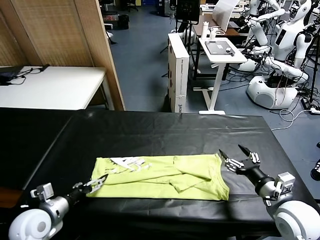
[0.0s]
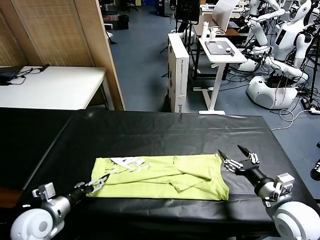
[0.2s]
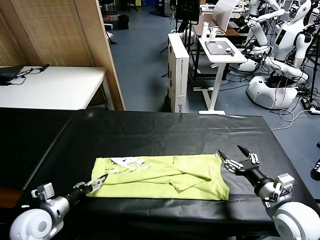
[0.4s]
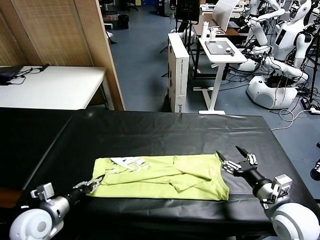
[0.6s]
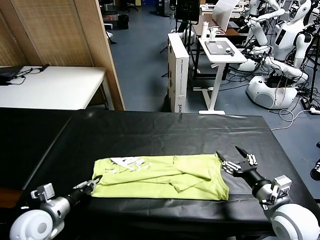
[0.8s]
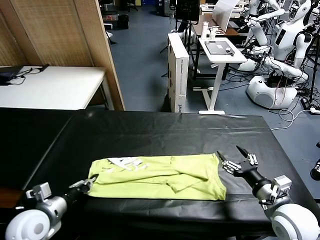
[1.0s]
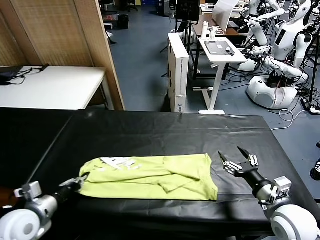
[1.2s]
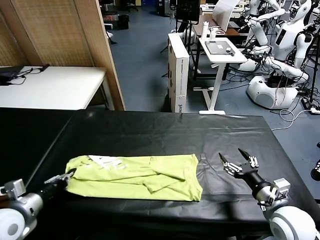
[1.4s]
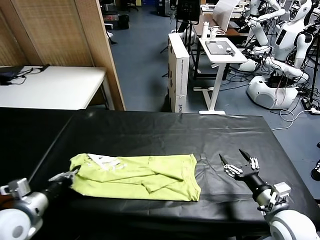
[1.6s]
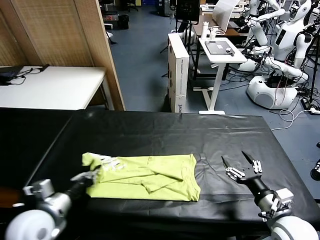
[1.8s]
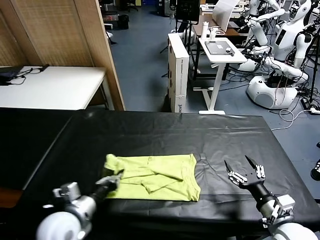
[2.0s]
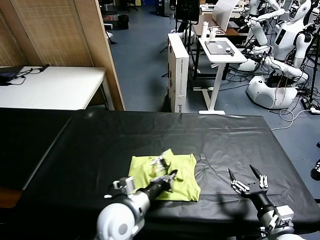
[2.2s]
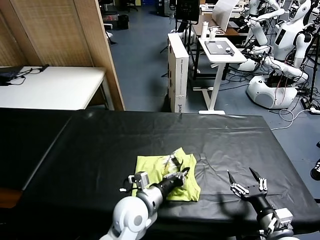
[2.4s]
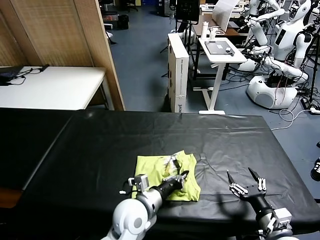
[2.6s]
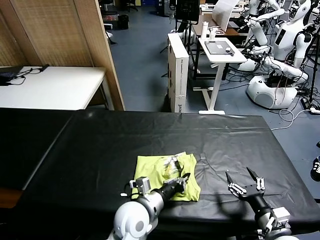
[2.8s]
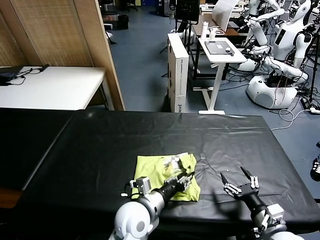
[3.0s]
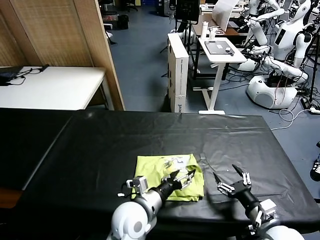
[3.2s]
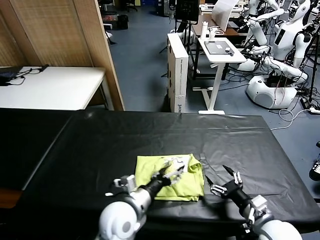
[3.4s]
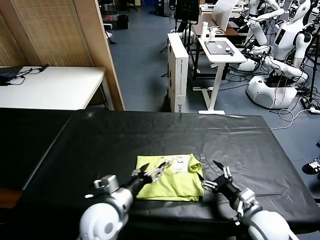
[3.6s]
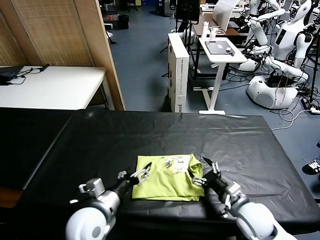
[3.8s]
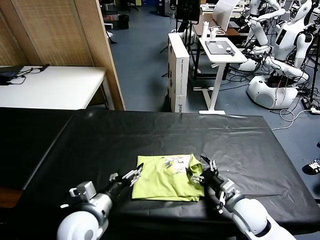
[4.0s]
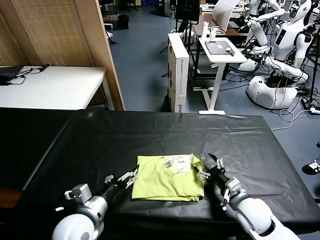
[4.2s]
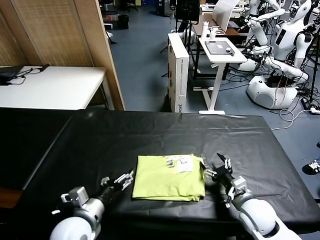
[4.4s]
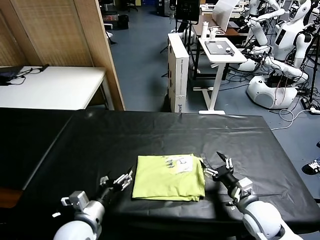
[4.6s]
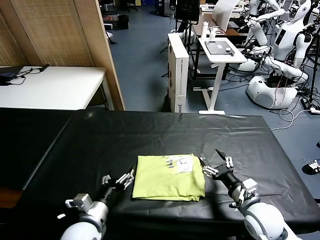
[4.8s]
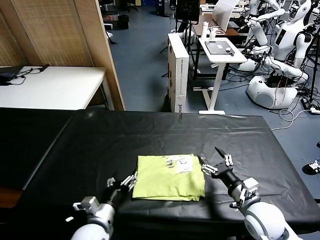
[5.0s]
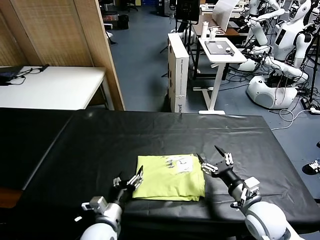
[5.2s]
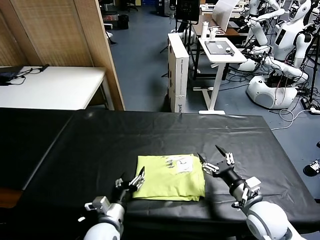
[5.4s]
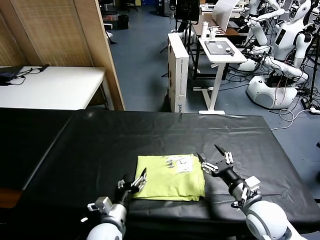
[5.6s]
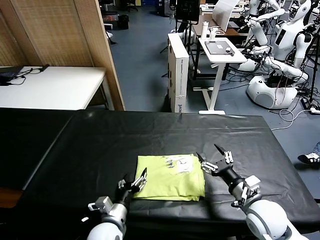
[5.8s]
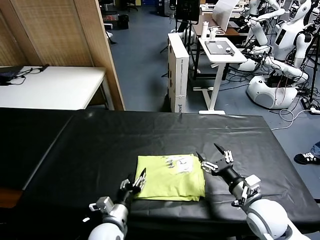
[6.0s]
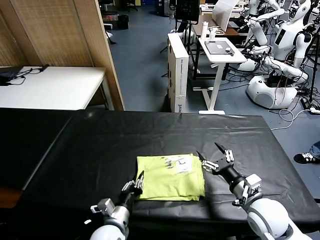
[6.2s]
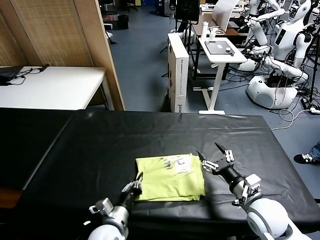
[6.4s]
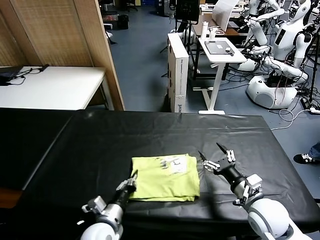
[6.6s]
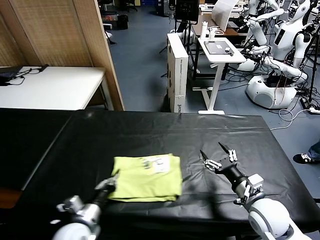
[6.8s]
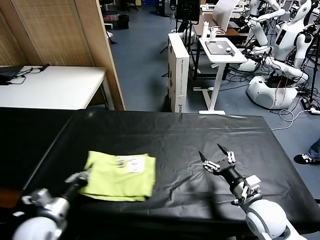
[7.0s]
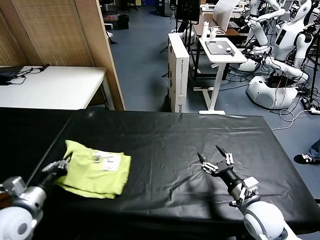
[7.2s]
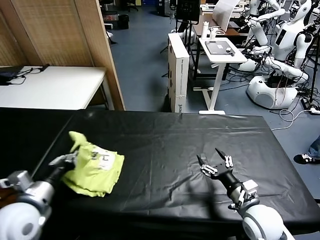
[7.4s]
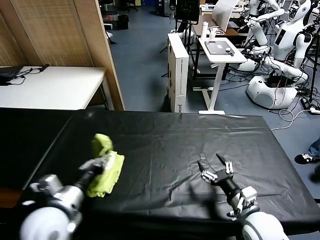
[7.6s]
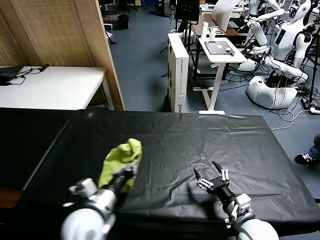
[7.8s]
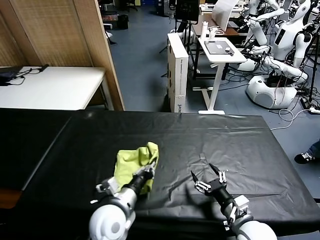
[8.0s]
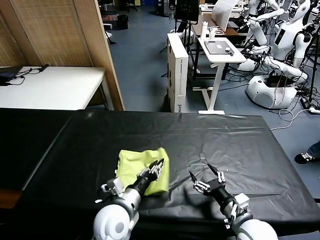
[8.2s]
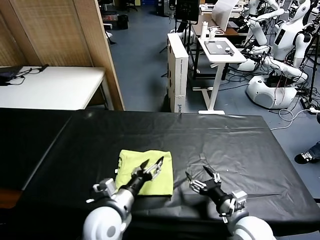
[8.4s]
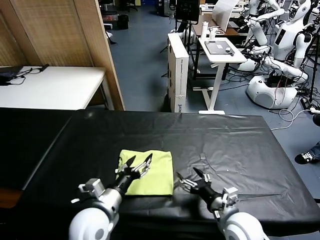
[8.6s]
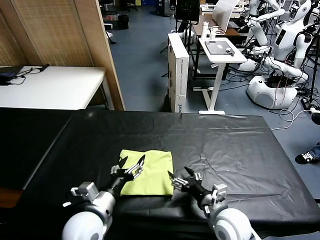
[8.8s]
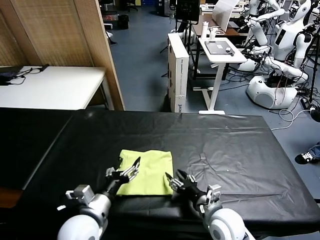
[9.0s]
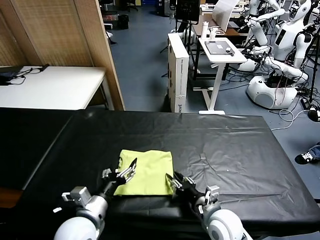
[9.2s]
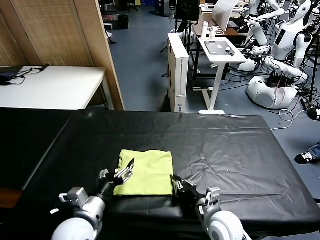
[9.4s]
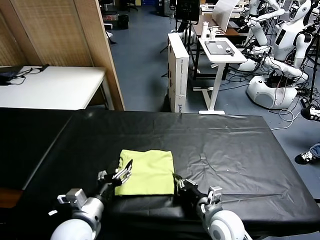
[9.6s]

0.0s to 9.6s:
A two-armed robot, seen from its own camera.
Task of the whole recording: fold and organize the clothes.
Step, 1.0s to 3.2s: use the left gripper to drag the left edge of the fabric to the left and folds it over the right edge.
Step, 3.4s to 8.2s: Flip the folded clothes over with left gripper.
0.0s to 1.6s: The left gripper heads to the right, covering roughly 15 cm, and closes its fingers. The right gripper goes approximately 5 cm backward.
1.6s to 3.2s: The left gripper is displaced to the right by roughly 10 cm, and opens up.
3.2s to 4.8s: The left gripper travels to the left by some 15 cm. The right gripper shifts roughly 5 cm forward.
4.8s to 6.4s: The left gripper changes place by approximately 5 cm, and closes its fingers.
6.4s to 8.0s: The right gripper shifts by approximately 5 cm; the left gripper goes approximately 5 cm upward, and goes to the left and returns, roughly 20 cm each way.
8.0s to 9.6s: Both grippers travel together to the left, some 5 cm. The left gripper opens its fingers, while the right gripper closes up.

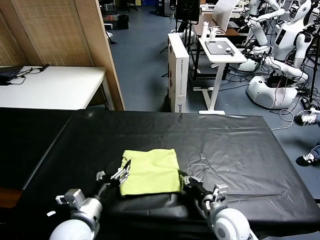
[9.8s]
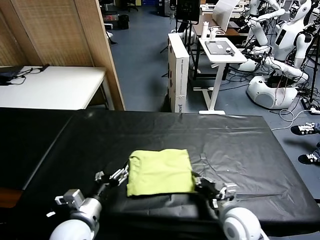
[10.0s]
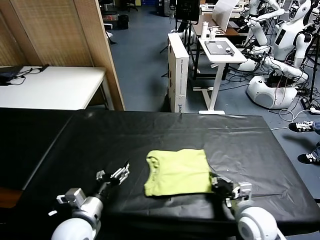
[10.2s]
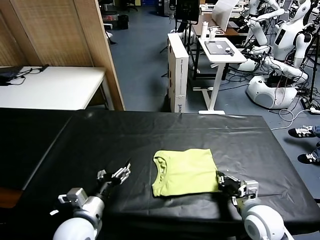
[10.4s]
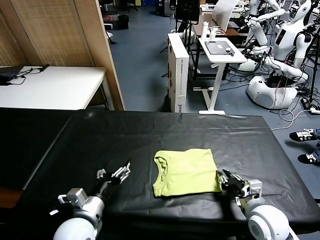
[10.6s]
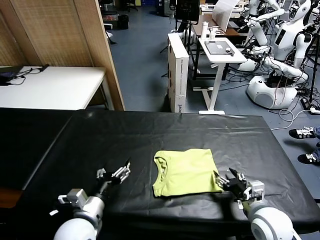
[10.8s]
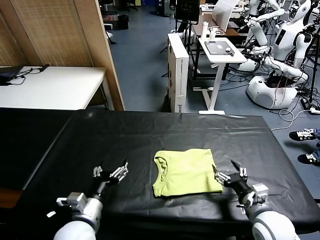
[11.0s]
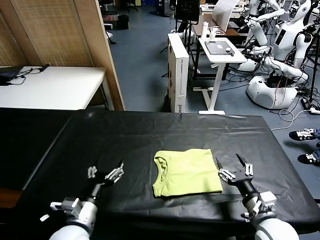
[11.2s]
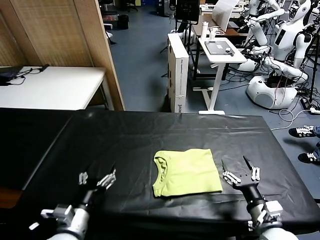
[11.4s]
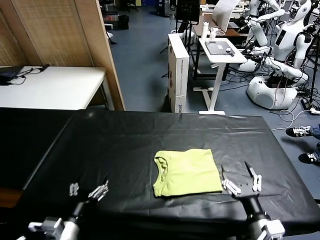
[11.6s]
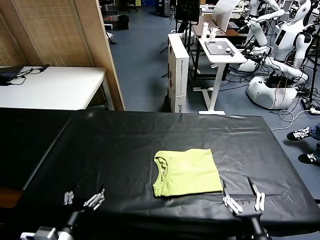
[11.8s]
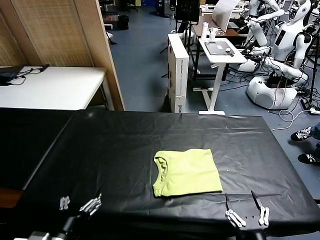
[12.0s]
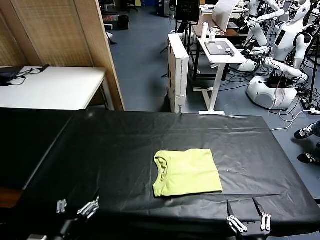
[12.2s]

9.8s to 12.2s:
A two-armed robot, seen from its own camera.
Task of the whole recording: fold and organize the clothes.
9.8s to 11.0s: The right gripper travels to the right by roughly 10 cm, and opens up.
11.0s to 12.2s: The right gripper is displaced backward by about 15 cm. The left gripper moves backward, approximately 10 cm.

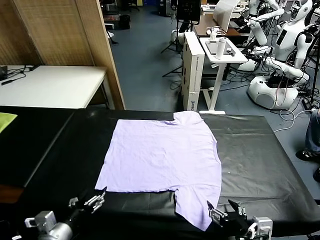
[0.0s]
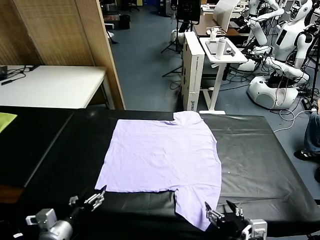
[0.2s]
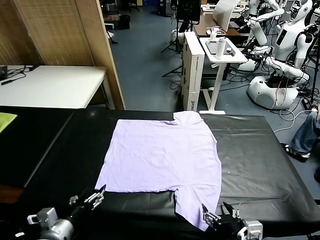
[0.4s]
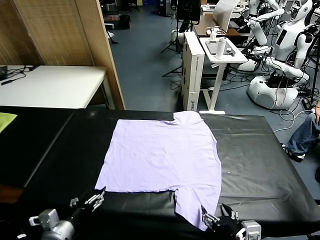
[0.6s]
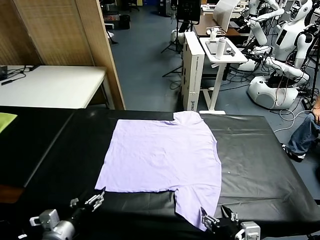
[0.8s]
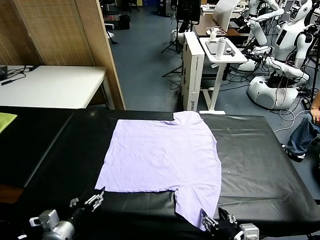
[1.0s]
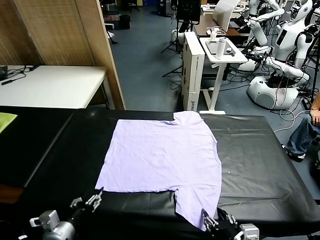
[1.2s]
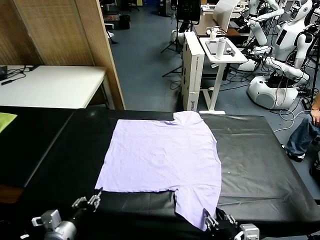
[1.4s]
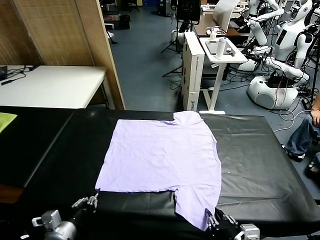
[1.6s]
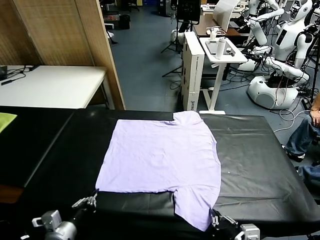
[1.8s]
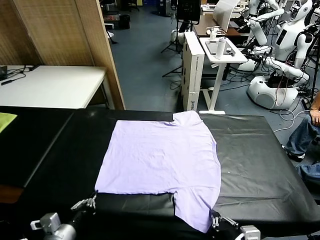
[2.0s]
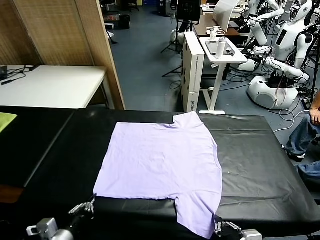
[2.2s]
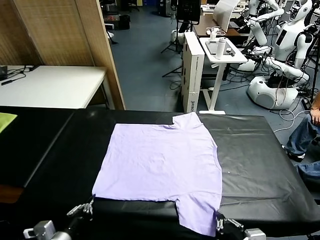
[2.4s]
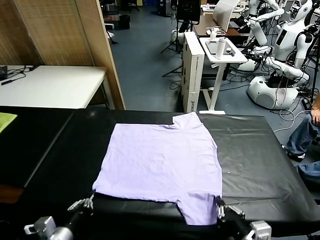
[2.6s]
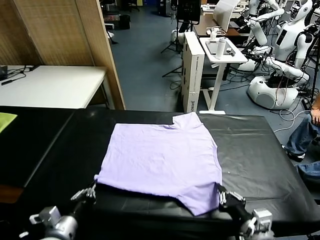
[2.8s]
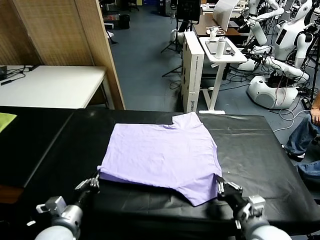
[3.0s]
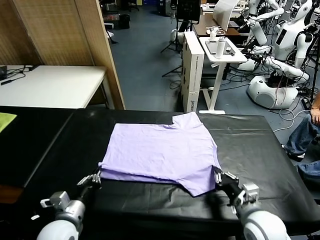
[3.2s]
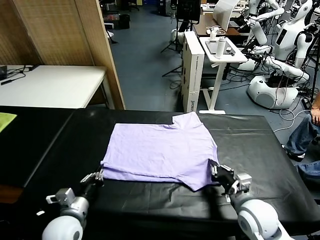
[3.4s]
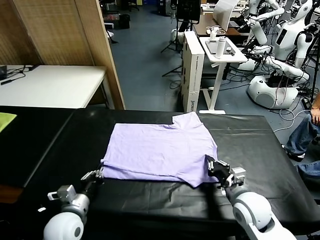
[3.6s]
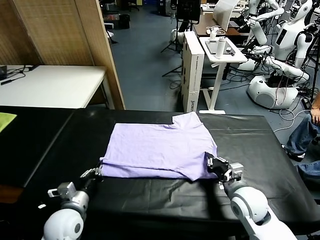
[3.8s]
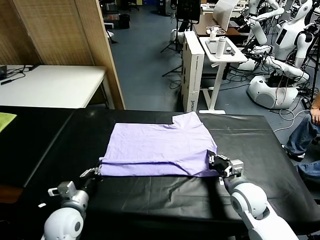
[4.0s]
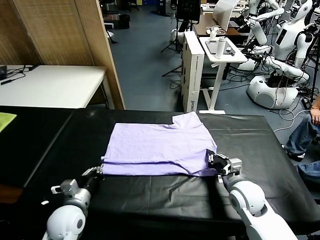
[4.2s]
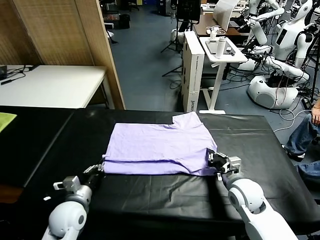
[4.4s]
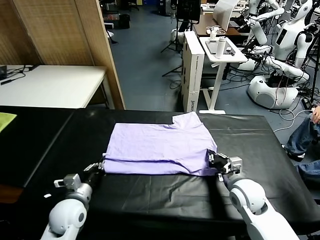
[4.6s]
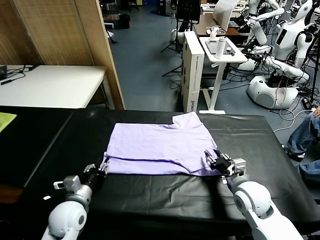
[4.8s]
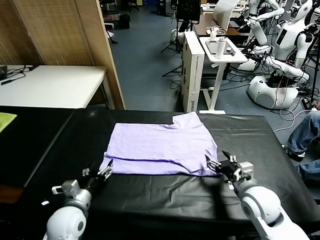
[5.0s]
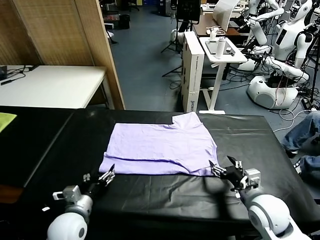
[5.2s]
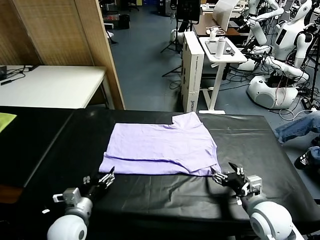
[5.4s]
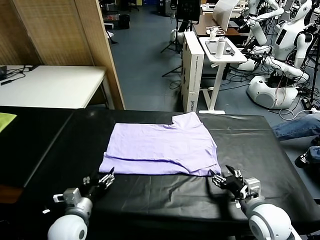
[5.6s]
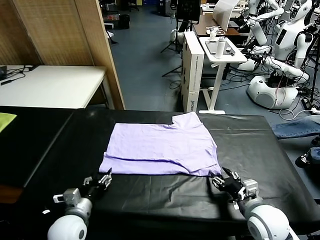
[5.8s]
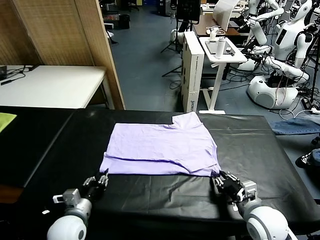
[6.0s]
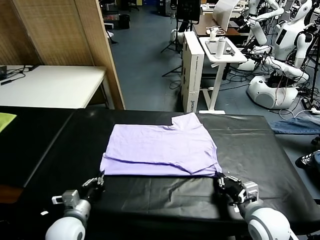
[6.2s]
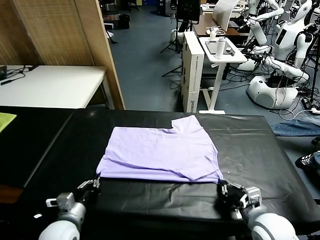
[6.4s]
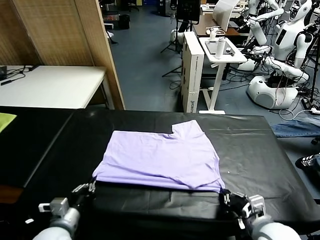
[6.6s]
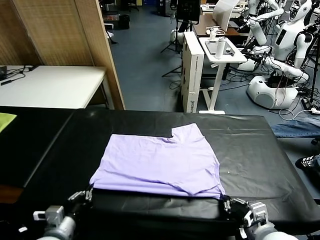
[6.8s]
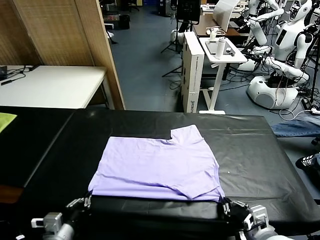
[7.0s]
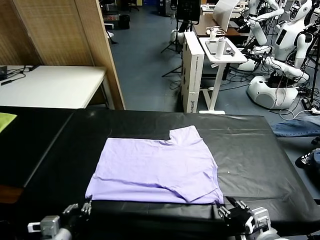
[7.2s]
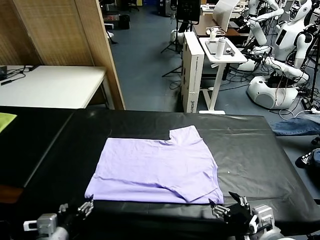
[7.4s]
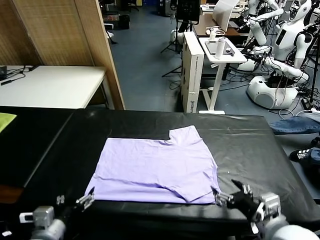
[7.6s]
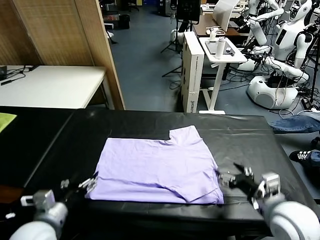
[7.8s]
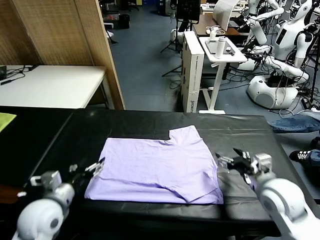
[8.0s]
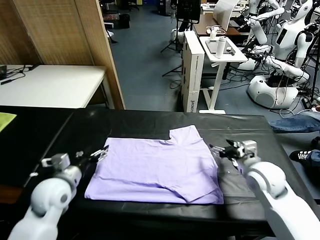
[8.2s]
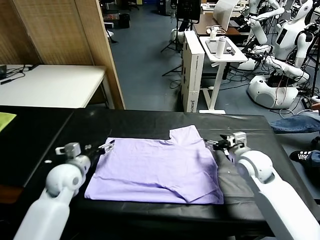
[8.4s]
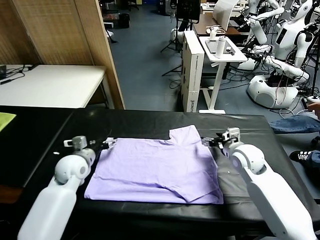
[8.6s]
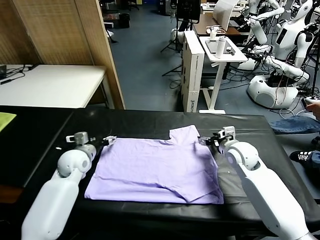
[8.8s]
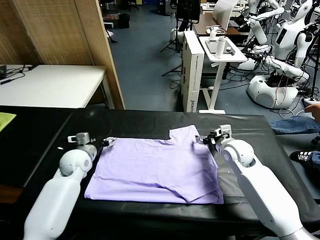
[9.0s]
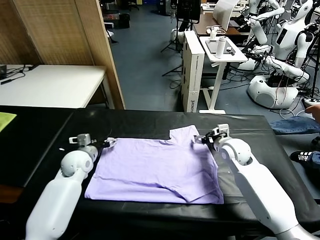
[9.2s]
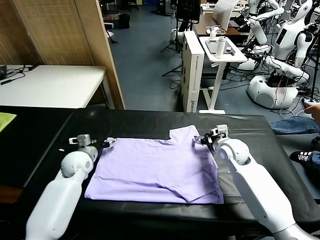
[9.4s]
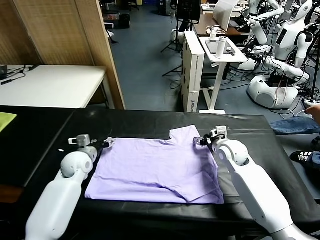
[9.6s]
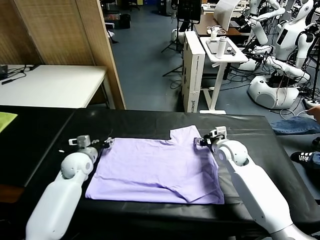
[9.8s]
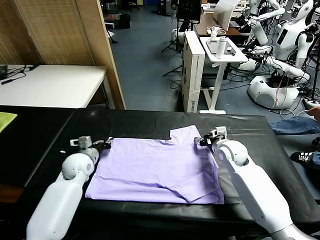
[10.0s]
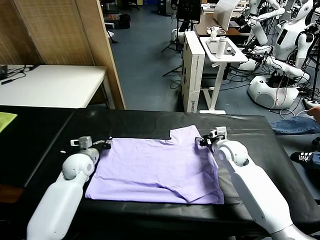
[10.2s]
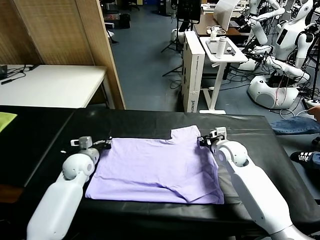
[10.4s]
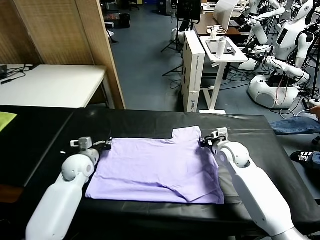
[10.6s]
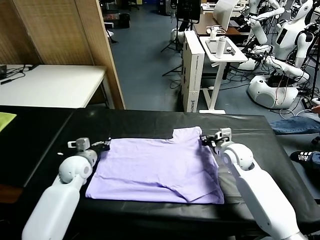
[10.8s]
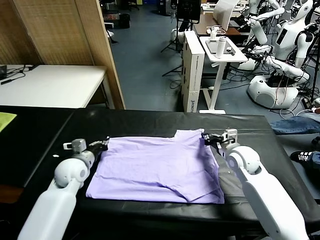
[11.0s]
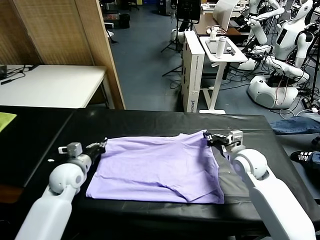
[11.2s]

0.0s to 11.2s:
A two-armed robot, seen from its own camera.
Task of the whole recording: fold and organize the clothes.
Step, 0.0s to 1.8s: use both grippers simultaneously to clamp the lower edge of the clothing fabric.
Step, 2.2s to 4.8s: use both grippers to drag the lower edge of the fabric forward and fold it over the upper edge.
Step, 5.0s to 7.2s: Drag the clothes downward with both gripper.
Step, 7.4s to 10.6s: use both grippers simultaneously to clamp the upper edge of the clothing fabric.
1.6s to 3.2s: The right gripper is displaced forward by some 15 cm. The left gripper goes about 5 cm forward.
3.2s to 4.8s: The right gripper opens up, while the left gripper opens its fingers.
4.8s to 6.4s: The left gripper moves backward, some 5 cm, and closes its fingers, while the right gripper shifts some 10 cm backward, and closes.
6.4s to 8.0s: The left gripper travels upward and forward by roughly 10 cm, and opens. Meanwhile the right gripper heads forward, covering roughly 15 cm, and opens its fingers.
8.0s to 9.6s: The grippers both shift forward and downward by some 15 cm.
9.6s to 11.2s: The grippers both shift backward by roughly 10 cm. The left gripper closes its fingers; the right gripper closes its fingers.
